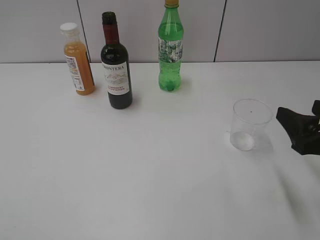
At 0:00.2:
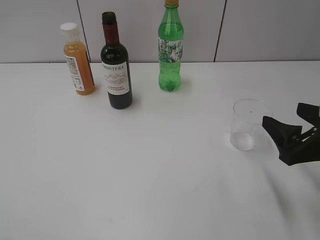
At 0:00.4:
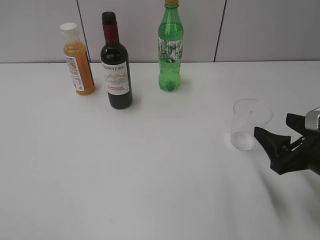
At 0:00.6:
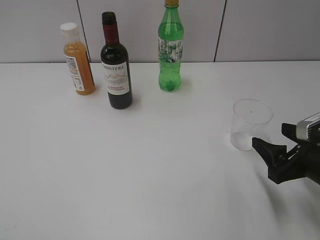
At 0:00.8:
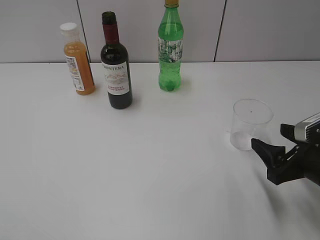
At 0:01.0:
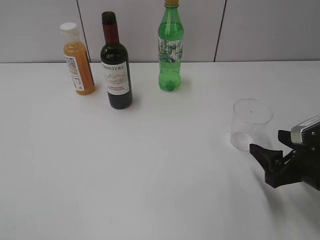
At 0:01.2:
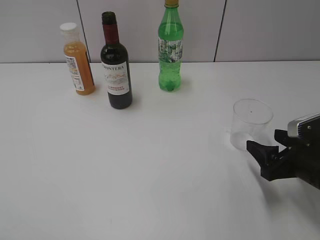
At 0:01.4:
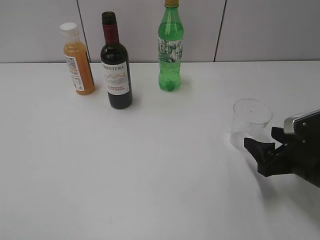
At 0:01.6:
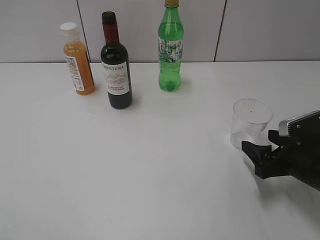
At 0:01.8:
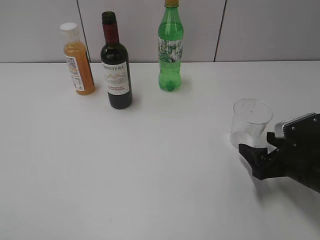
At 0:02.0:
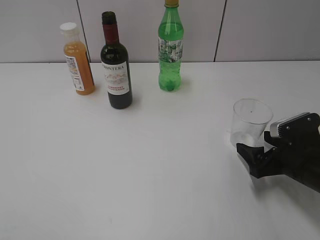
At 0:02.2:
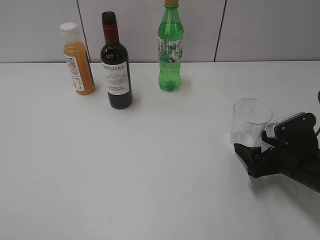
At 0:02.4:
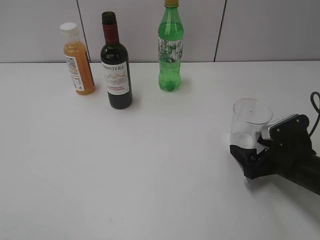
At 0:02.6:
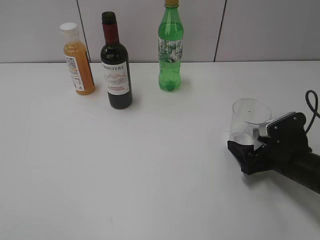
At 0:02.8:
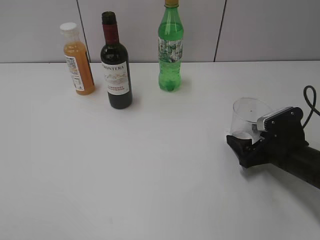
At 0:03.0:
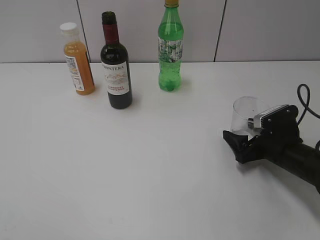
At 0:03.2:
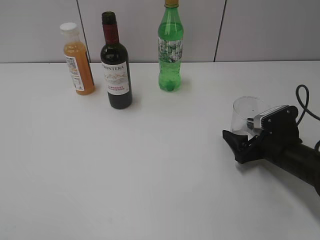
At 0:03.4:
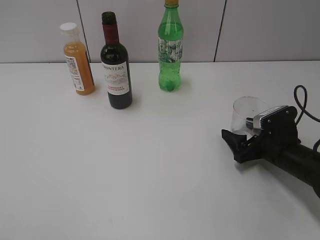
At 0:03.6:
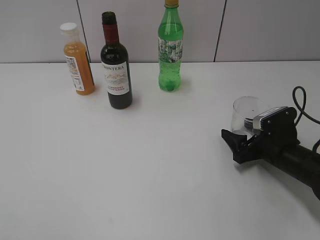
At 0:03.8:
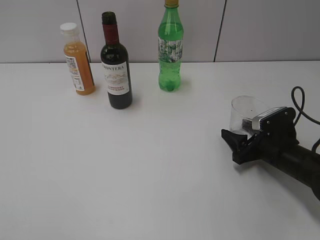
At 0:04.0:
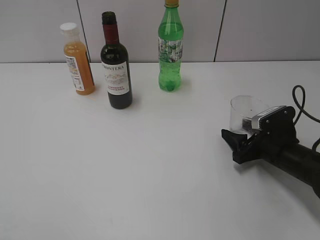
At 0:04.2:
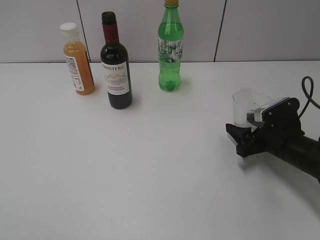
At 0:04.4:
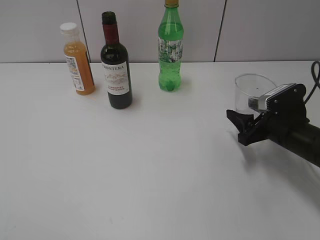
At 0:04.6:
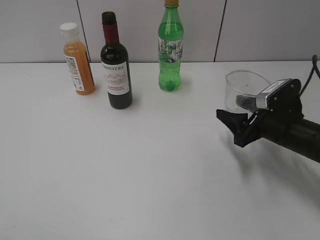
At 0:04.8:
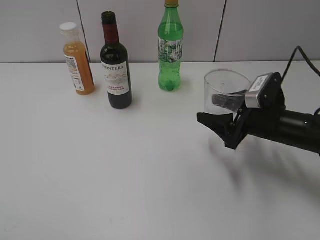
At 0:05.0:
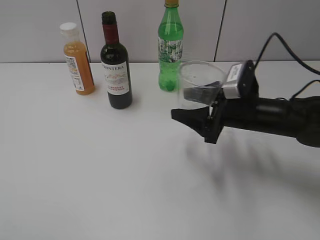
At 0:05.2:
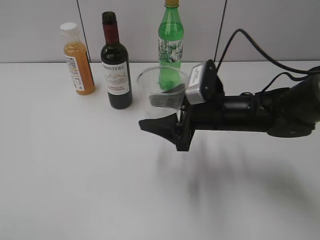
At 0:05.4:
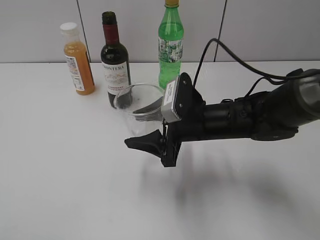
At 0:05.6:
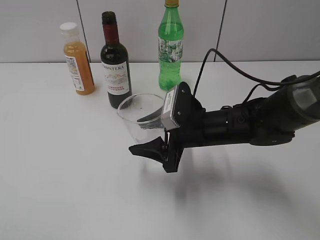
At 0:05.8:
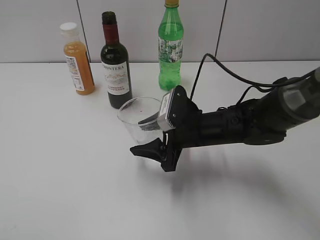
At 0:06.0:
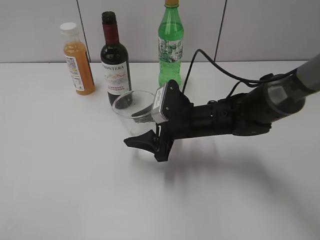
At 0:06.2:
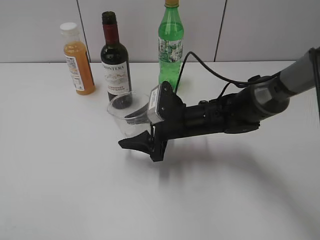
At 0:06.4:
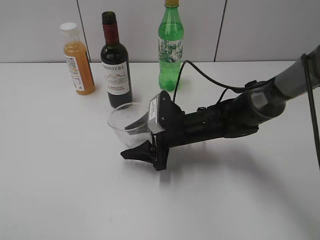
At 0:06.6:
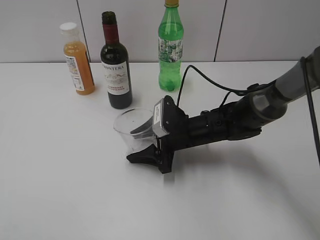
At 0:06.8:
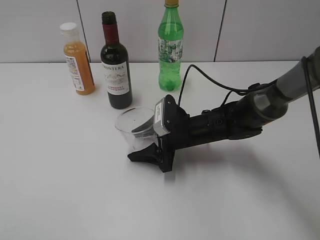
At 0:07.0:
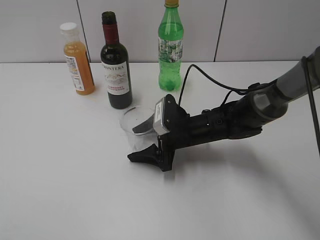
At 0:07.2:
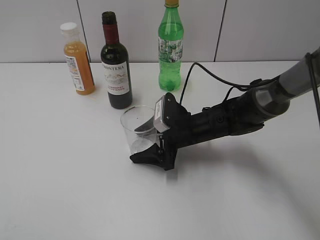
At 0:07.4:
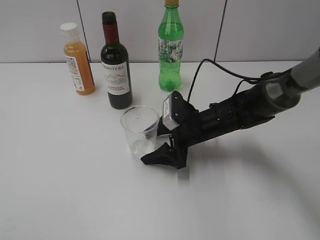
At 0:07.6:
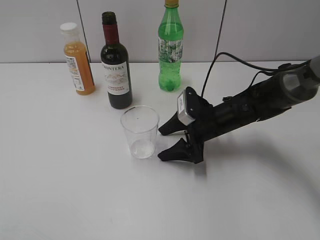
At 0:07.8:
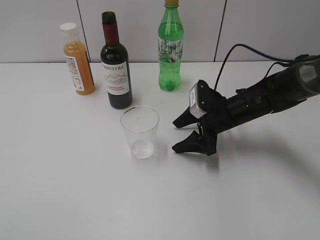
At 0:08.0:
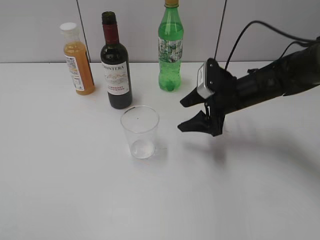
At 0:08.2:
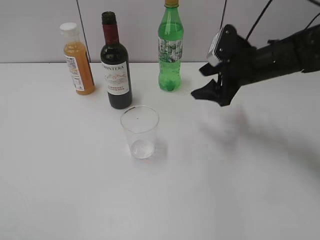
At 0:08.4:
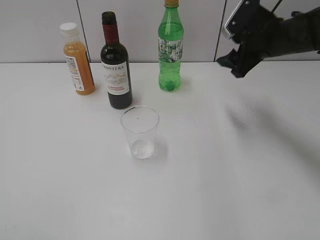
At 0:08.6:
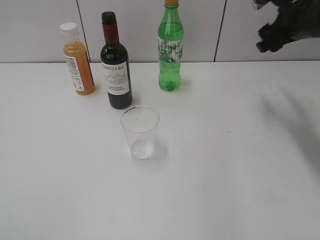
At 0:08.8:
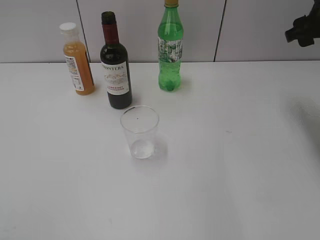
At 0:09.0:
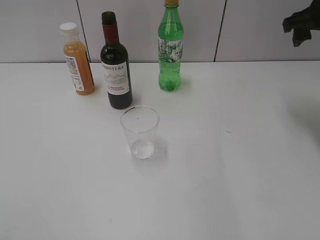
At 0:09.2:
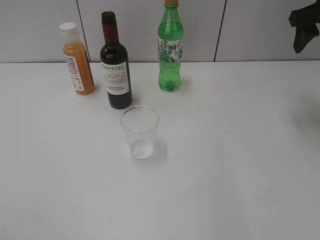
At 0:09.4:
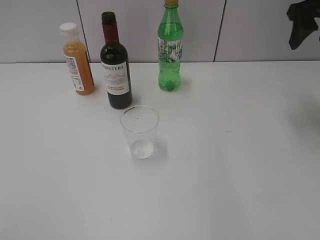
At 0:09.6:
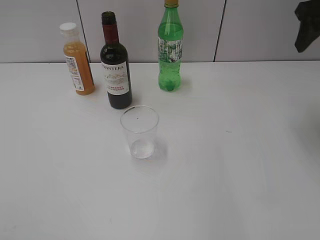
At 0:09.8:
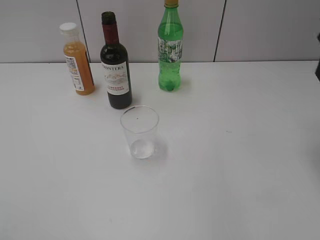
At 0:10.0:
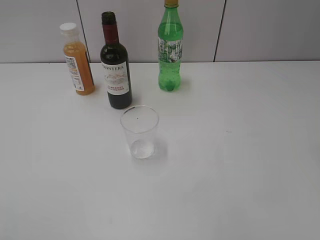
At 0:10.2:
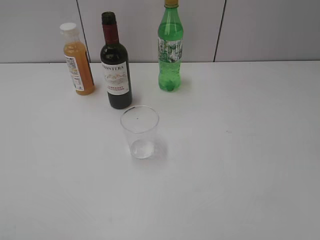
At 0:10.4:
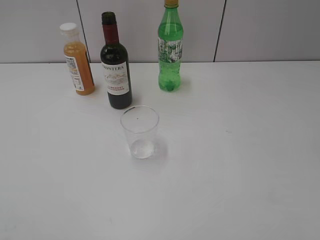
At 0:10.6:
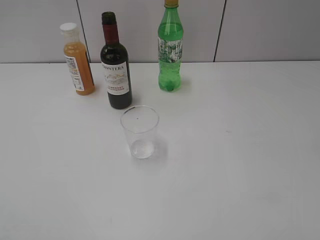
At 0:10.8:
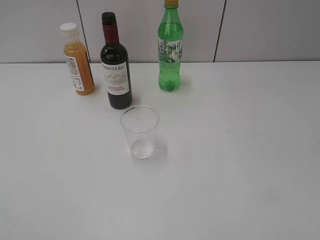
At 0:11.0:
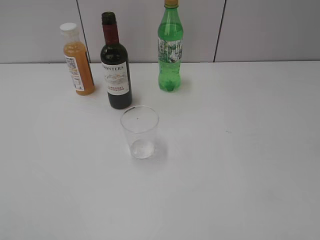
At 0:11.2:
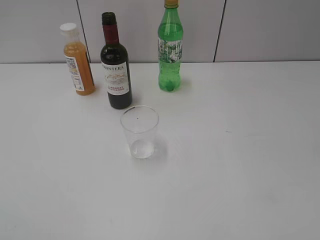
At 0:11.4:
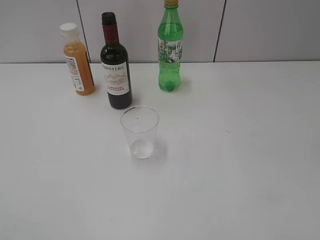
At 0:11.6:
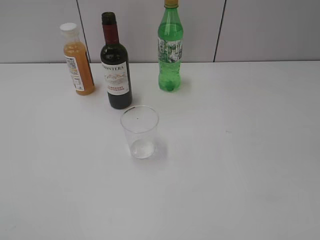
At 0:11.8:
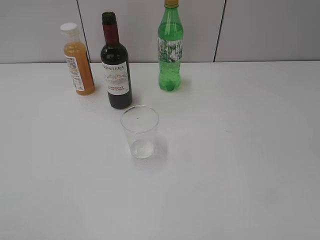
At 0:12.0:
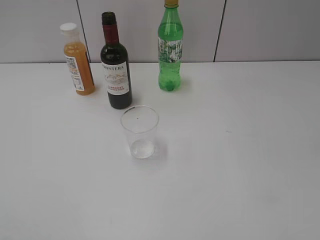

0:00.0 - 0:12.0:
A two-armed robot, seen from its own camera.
Step, 0:00.0 - 0:03.8: Grasp the transparent cup with right gripper.
Step, 0:04.0 - 0:07.6: Place the transparent cup on the table with right gripper.
0:00.0 - 0:01.6: The right gripper goes about 10 cm downward.
0:01.6 - 0:03.0: The right gripper shifts roughly 5 cm forward, and opens.
0:03.0 - 0:04.4: The right gripper closes its fingers.
0:04.4 - 0:06.0: The right gripper travels to the left by some 20 cm.
0:06.0 - 0:07.6: The right gripper moves about 5 cm, and opens its fingers.
0:07.6 - 0:09.0: The right gripper goes about 25 cm upward and to the right, and closes.
0:09.0 - 0:10.4: The right gripper goes approximately 25 cm backward, and closes up.

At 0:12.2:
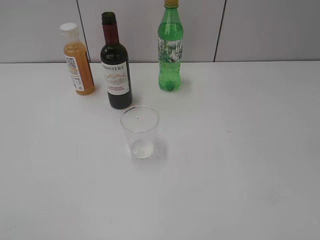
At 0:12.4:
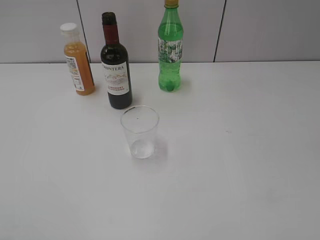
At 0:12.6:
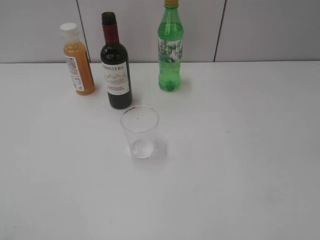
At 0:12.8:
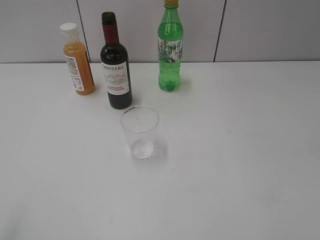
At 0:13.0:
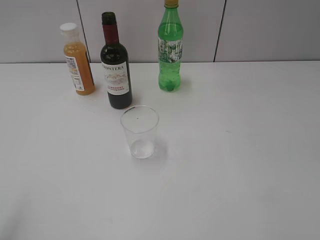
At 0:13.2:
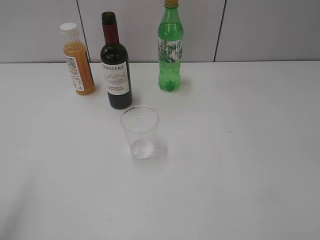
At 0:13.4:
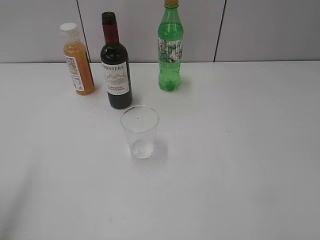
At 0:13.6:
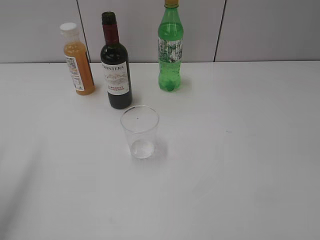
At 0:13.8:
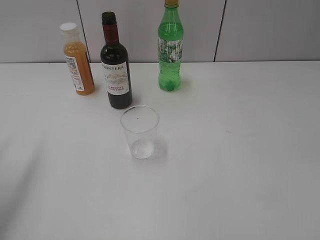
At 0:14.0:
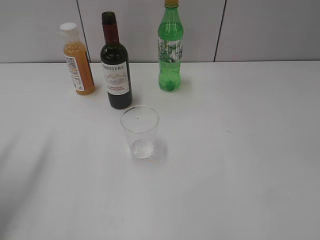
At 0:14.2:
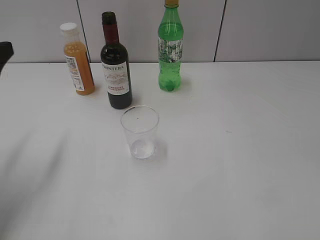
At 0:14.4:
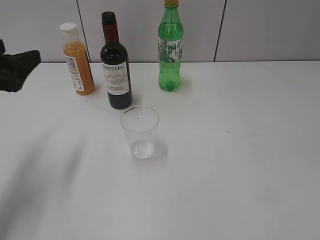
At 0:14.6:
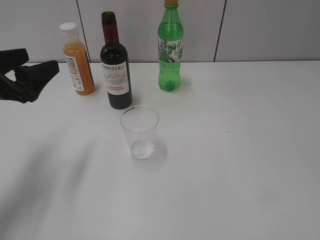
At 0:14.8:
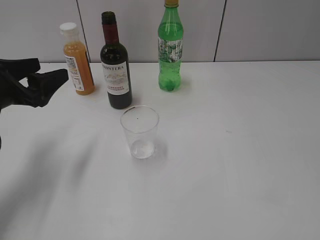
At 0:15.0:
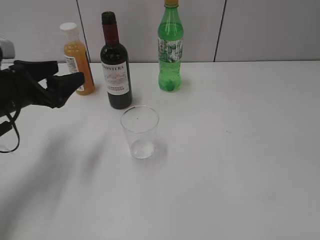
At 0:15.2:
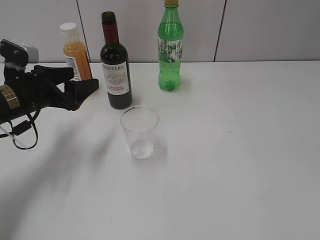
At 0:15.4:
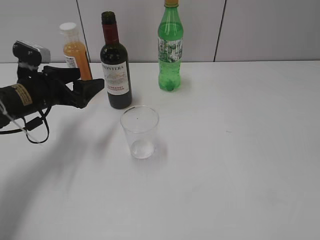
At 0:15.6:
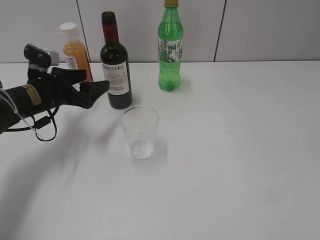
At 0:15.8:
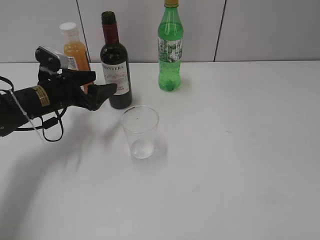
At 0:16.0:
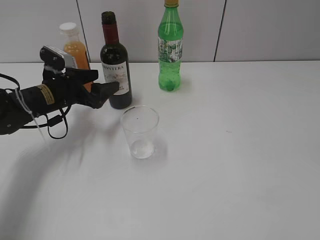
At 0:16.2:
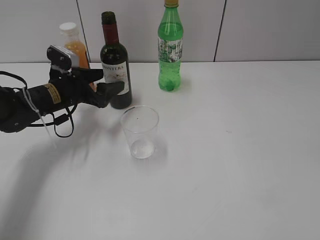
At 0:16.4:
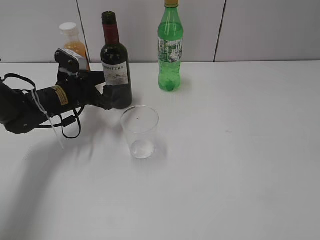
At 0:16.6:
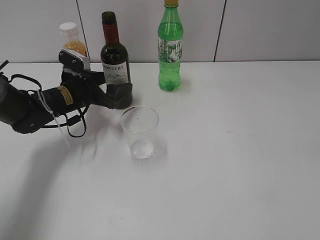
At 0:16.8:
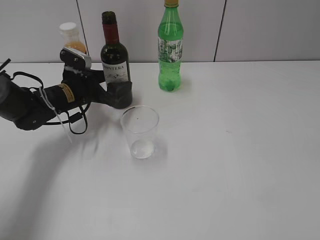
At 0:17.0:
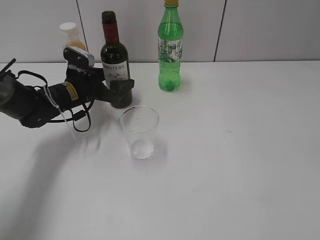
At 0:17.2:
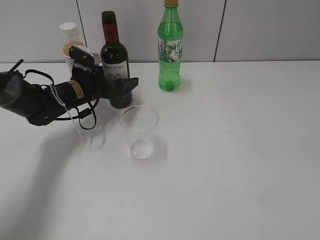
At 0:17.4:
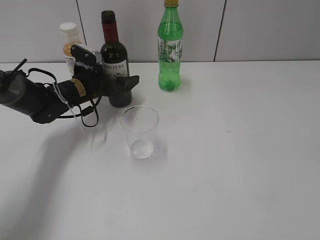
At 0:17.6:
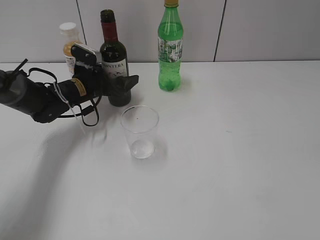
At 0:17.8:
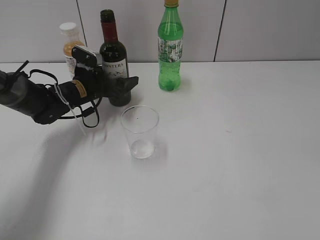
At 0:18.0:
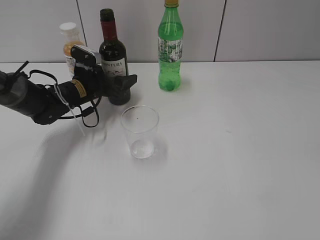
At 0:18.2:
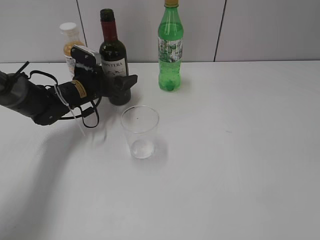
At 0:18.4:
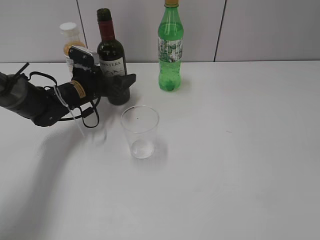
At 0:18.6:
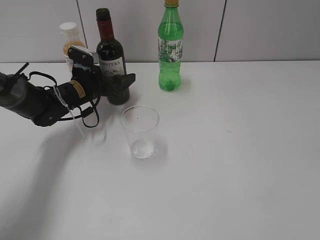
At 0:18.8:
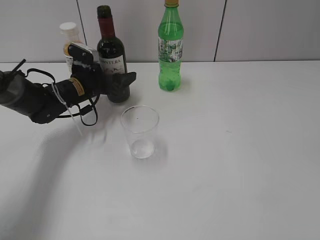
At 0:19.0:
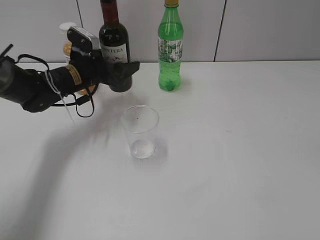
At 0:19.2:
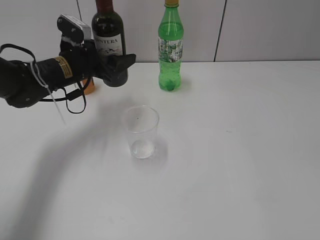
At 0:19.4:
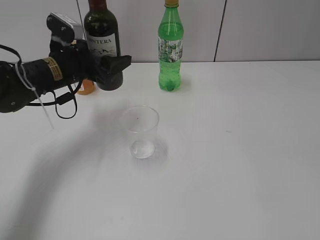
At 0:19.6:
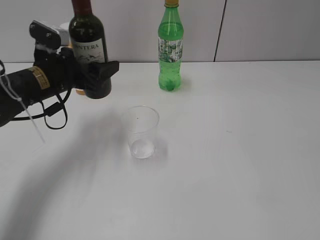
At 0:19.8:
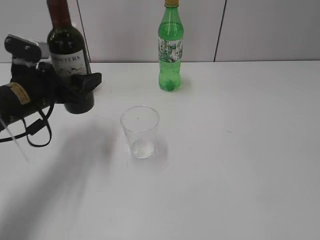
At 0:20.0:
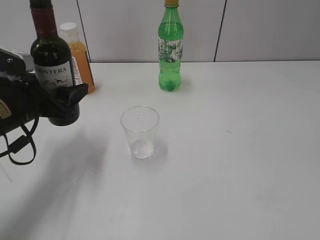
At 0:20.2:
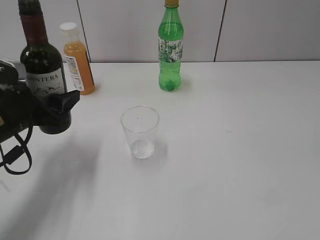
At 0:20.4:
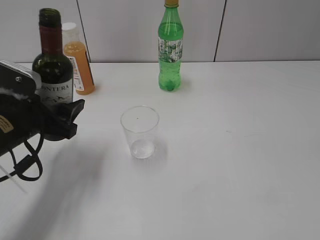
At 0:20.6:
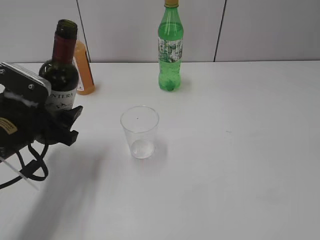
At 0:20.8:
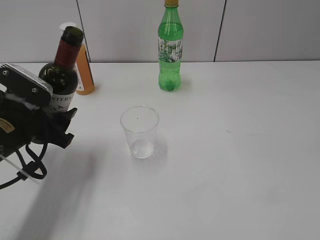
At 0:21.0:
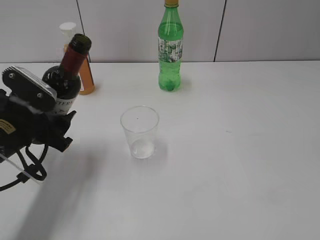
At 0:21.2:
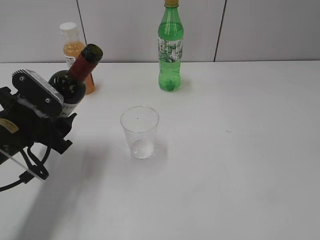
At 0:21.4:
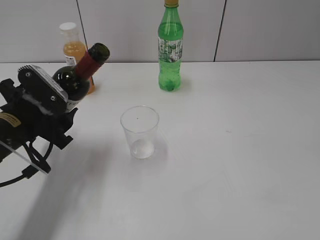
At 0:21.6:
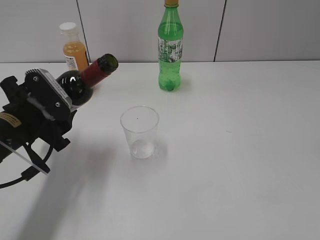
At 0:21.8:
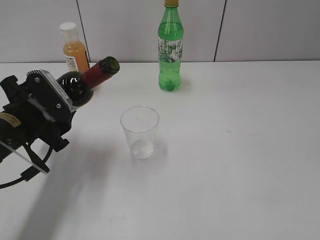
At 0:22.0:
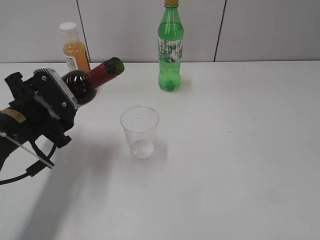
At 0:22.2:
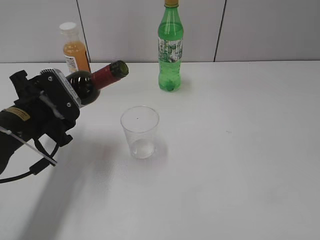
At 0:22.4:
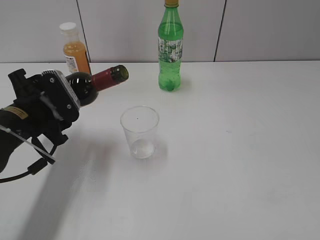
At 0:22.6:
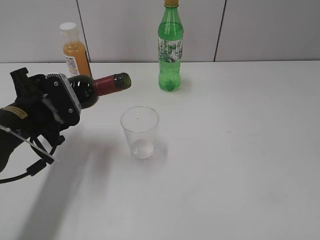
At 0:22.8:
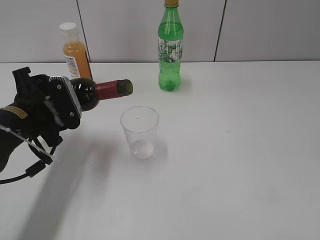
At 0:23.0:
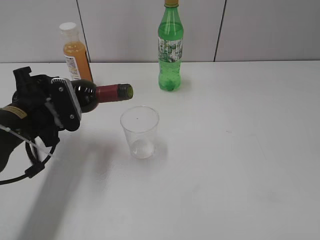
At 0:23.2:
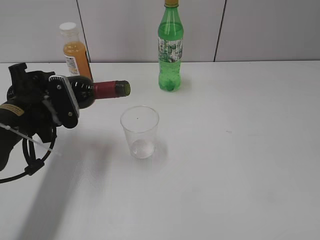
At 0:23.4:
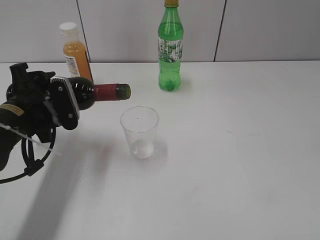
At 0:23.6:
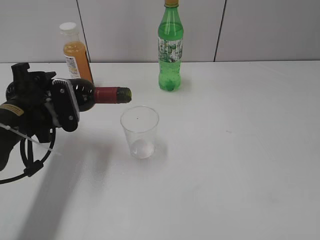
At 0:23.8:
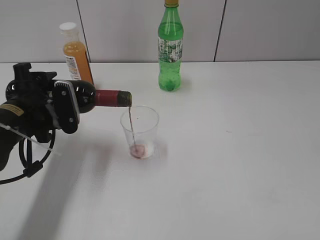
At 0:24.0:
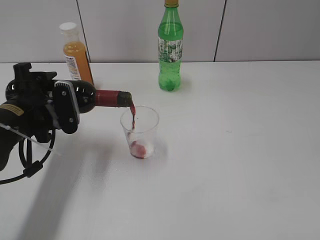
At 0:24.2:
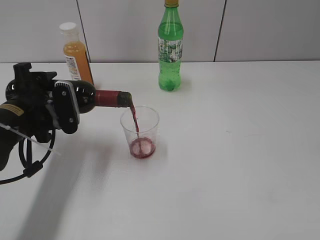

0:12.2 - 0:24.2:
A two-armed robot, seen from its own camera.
Step, 0:12.2 - 0:18.6: Grasp the bottle with red wine with left gripper.
0:12.2 - 0:13.8: The left gripper shifts some 25 cm forward.
0:13.8 - 0:15.2: The left gripper heads downward, forward and to the right, covering about 20 cm, and opens its fingers.
0:15.2 - 0:16.6: The left gripper goes some 10 cm forward, downward and to the right.
0:16.6 - 0:18.2: The left gripper closes.
0:18.2 - 0:19.8: The left gripper shifts some 15 cm backward and upward.
0:19.8 - 0:21.2: The left gripper goes some 5 cm backward.
0:22.6 - 0:24.2: The grippers move only a little.
